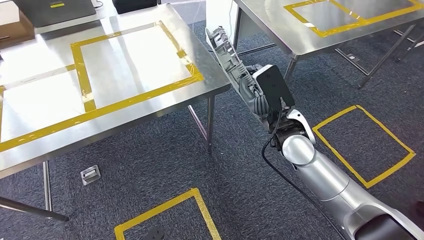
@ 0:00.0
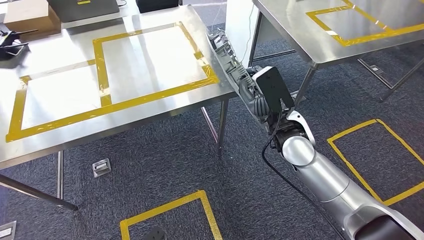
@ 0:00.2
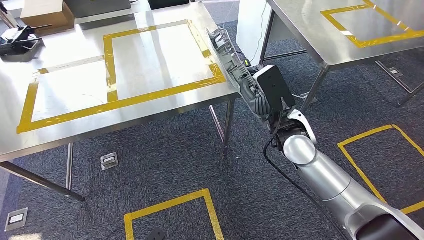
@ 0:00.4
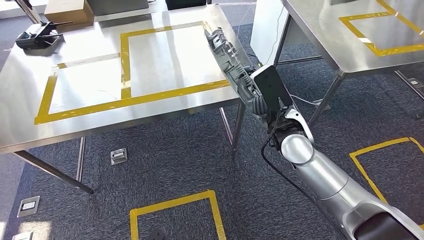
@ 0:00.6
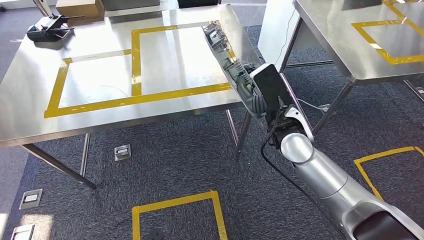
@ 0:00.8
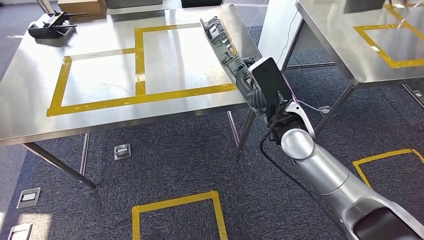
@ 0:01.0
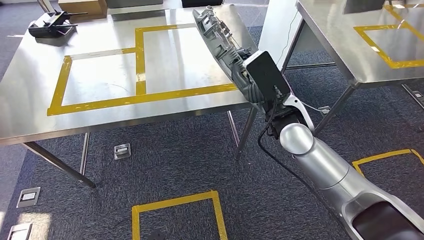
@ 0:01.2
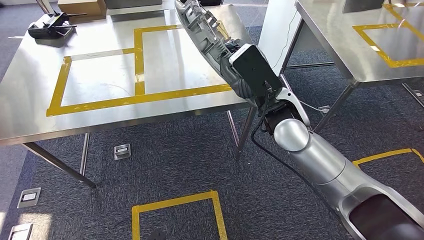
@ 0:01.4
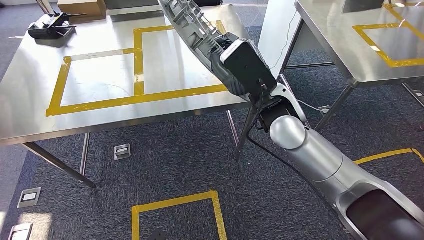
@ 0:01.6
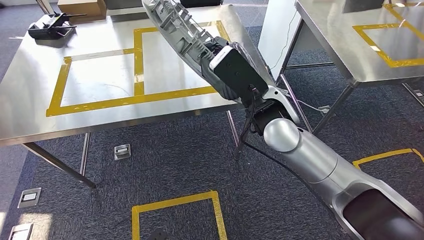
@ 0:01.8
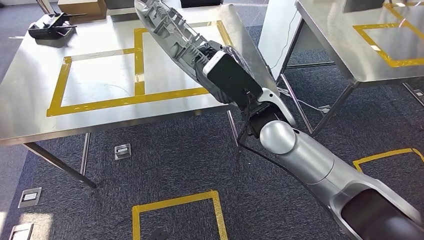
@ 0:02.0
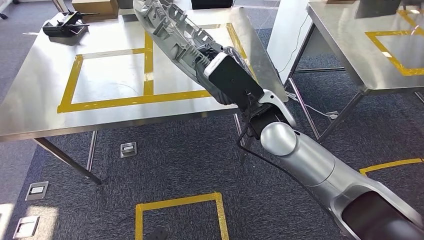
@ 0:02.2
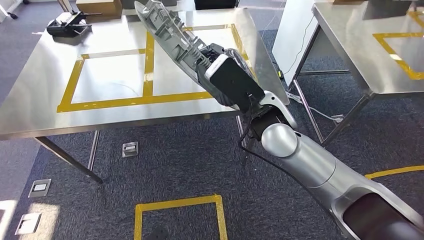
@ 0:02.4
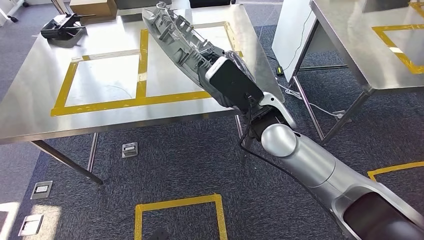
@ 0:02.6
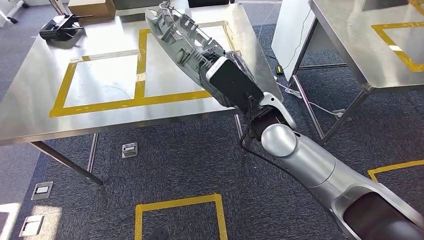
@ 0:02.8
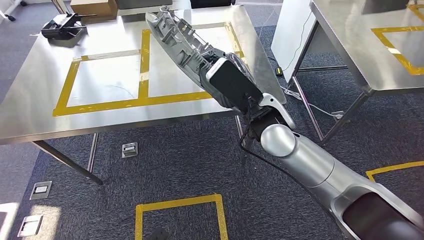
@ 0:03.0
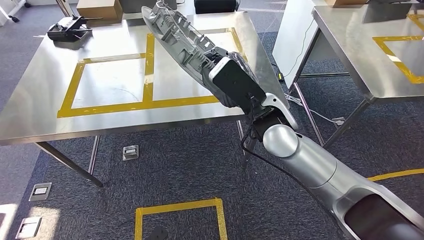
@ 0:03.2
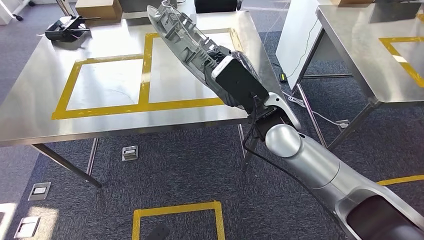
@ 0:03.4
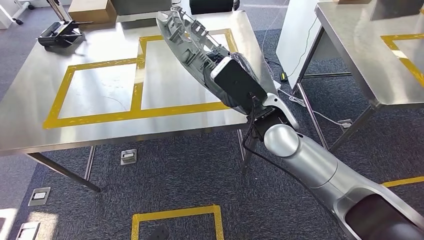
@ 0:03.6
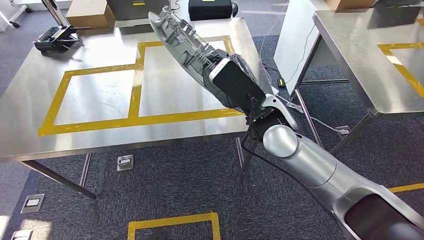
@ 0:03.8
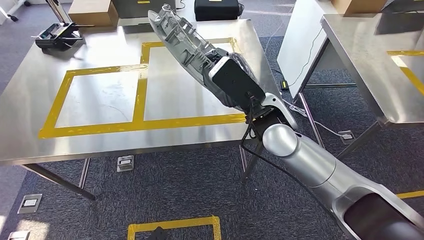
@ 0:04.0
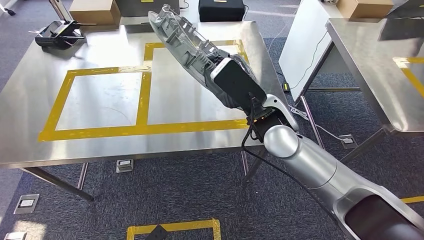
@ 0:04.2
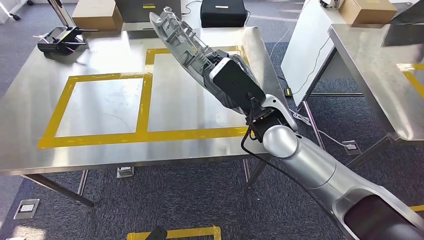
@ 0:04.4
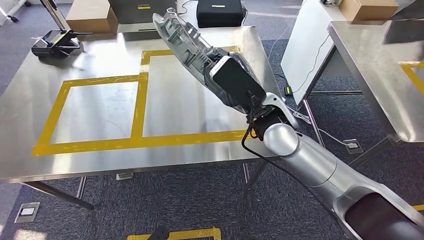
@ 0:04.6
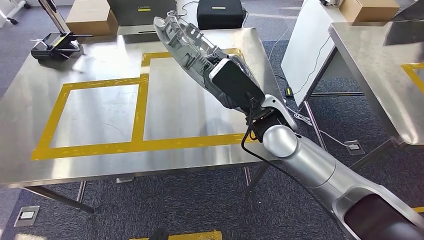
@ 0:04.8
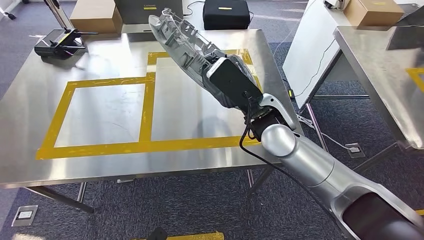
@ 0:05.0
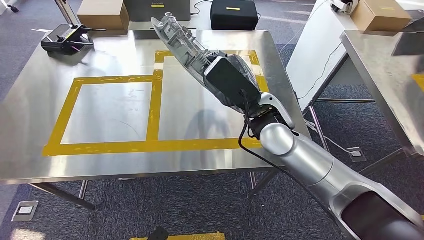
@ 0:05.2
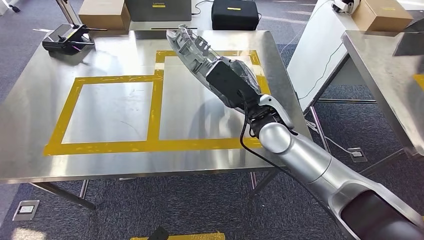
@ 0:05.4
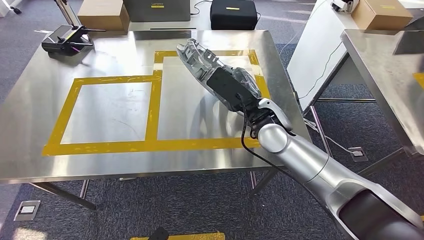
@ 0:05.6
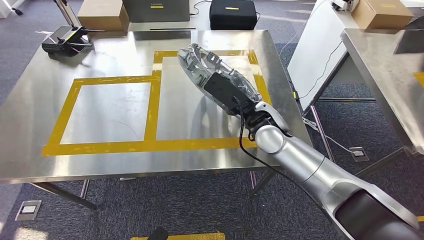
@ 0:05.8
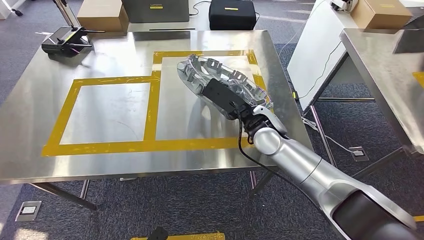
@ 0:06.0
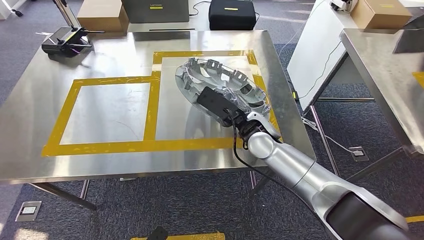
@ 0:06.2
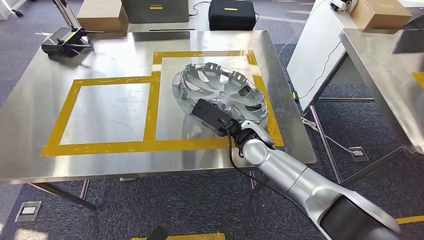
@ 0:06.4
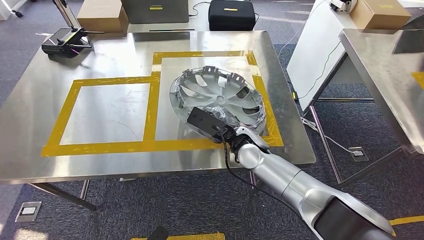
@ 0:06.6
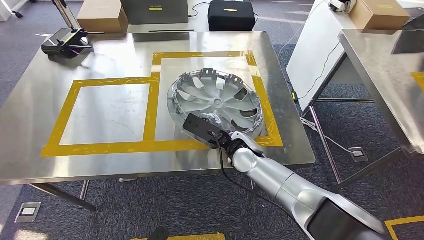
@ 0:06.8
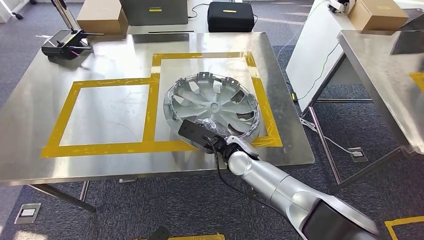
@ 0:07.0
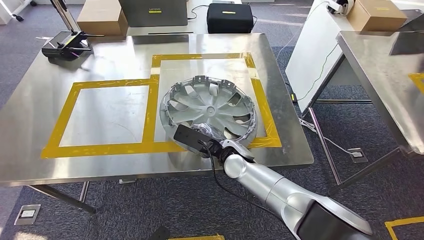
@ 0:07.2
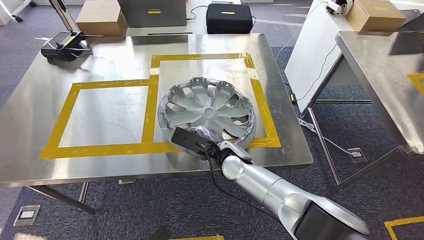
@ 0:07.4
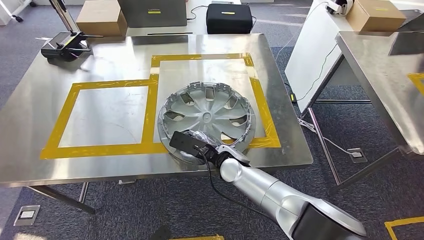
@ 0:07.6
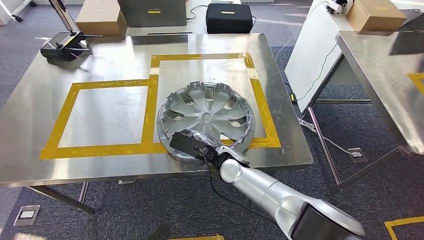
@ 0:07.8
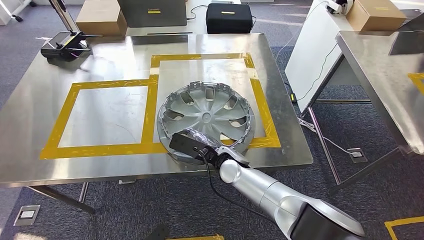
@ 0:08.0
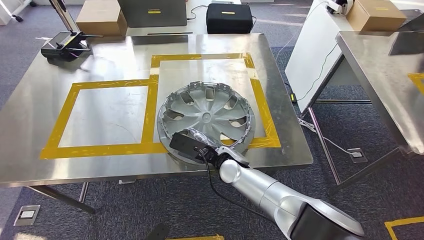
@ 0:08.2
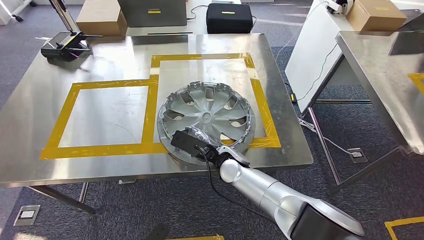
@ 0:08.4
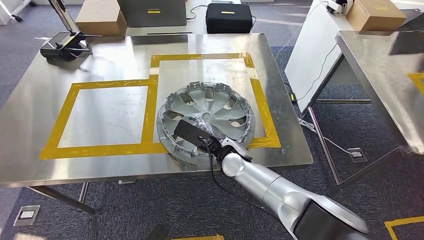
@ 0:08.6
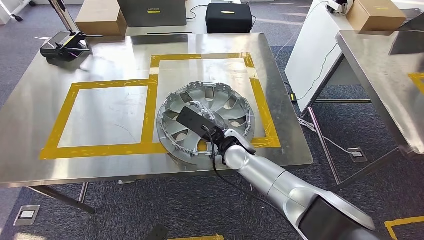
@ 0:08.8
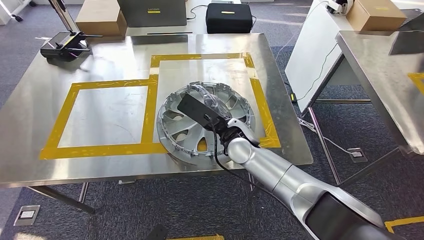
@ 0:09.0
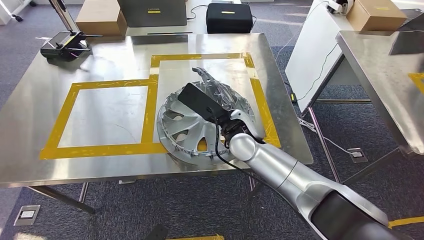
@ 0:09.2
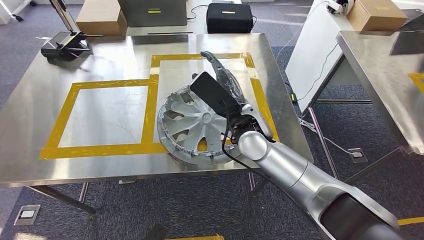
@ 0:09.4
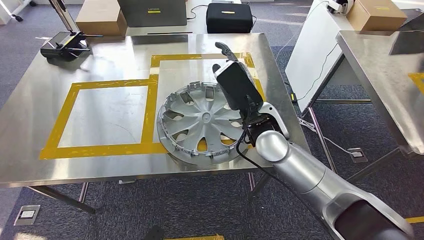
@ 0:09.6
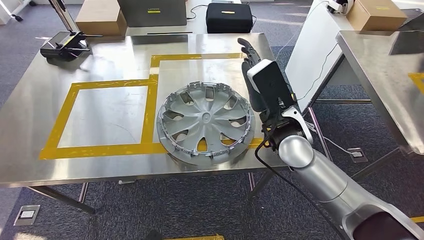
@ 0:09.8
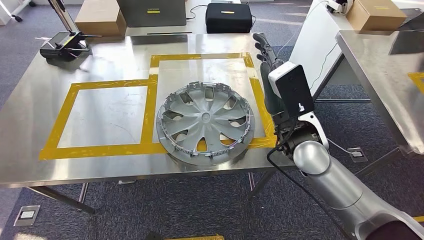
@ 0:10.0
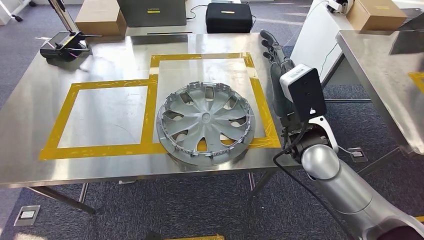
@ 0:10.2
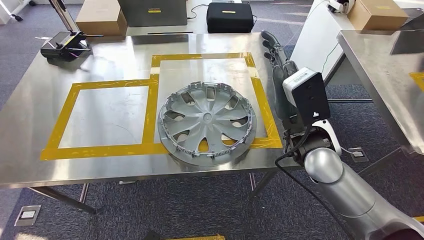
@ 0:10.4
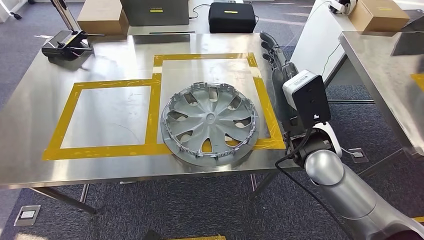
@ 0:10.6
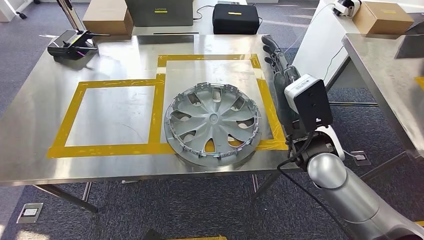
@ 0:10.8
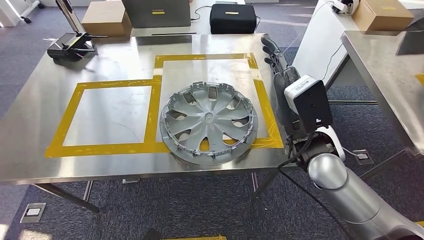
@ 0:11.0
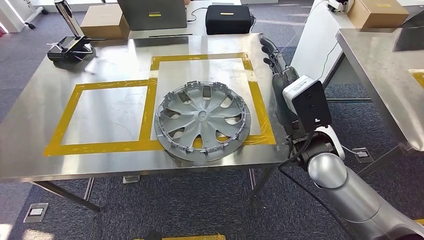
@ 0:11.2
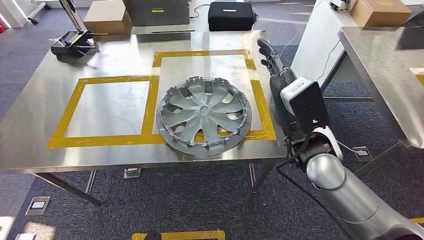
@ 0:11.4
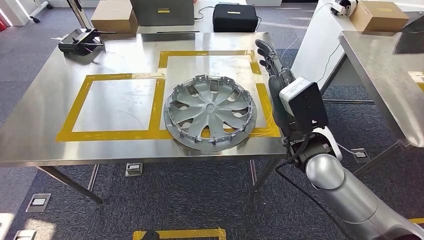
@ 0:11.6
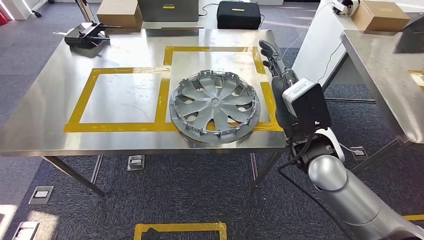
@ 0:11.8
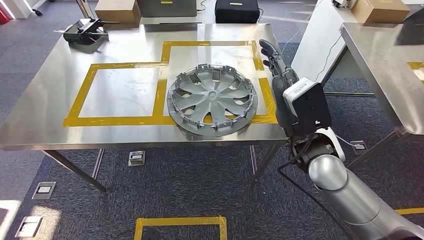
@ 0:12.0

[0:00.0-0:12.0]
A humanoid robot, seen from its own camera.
Step, 0:00.0 to 0:09.4: Insert the large material into the corresponding slot on the workbench.
0:07.6 to 0:09.0: The right hand goes some 5 cm upward.
0:09.0 to 0:10.4: The right hand shifts about 15 cm to the right, upward and backward.

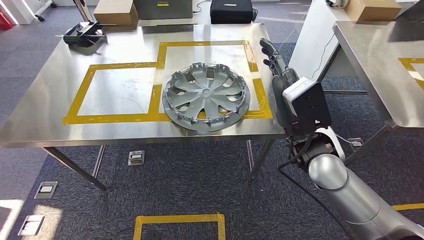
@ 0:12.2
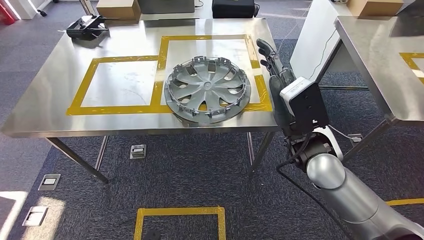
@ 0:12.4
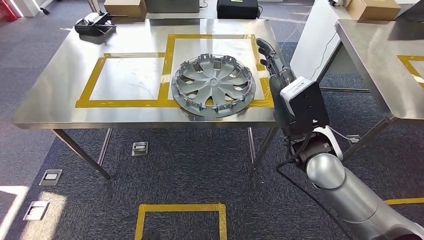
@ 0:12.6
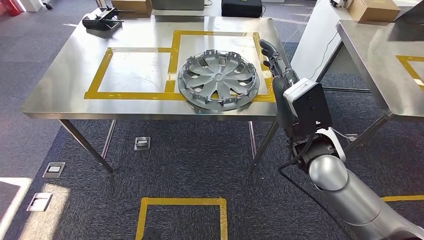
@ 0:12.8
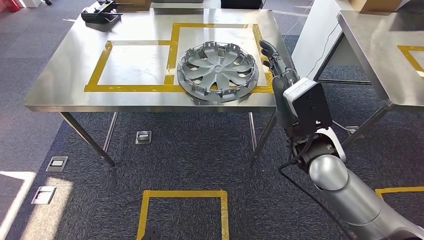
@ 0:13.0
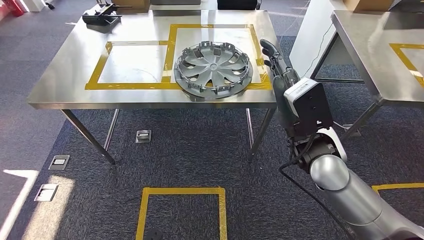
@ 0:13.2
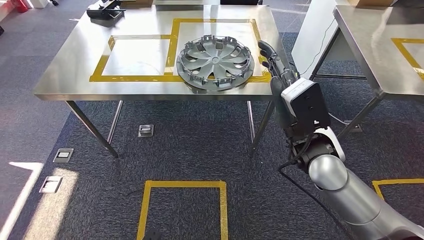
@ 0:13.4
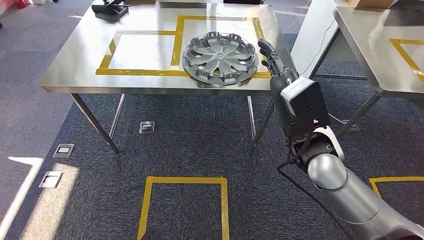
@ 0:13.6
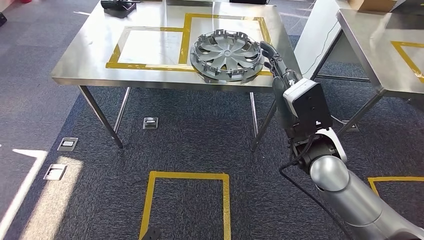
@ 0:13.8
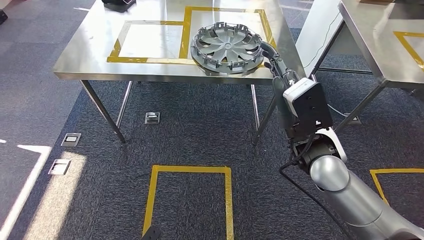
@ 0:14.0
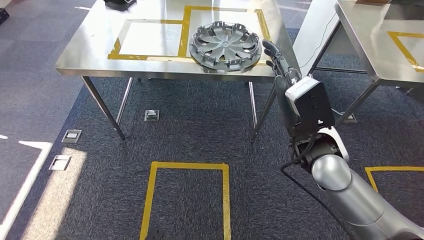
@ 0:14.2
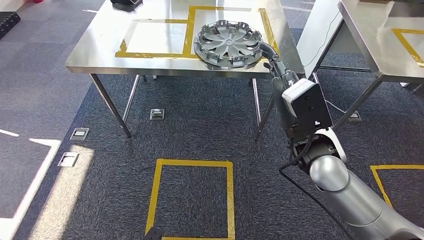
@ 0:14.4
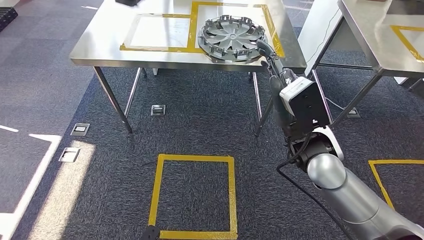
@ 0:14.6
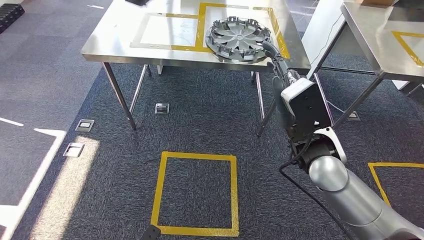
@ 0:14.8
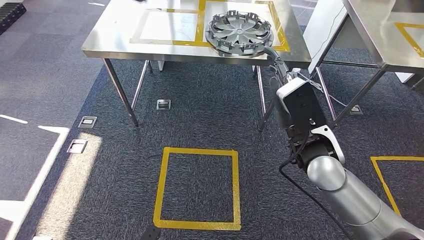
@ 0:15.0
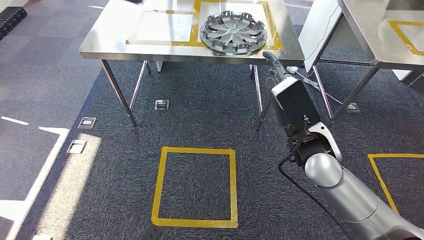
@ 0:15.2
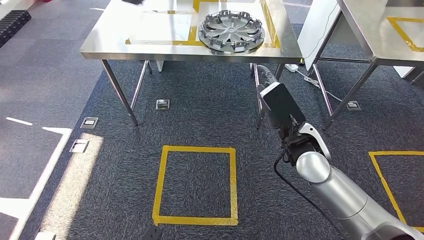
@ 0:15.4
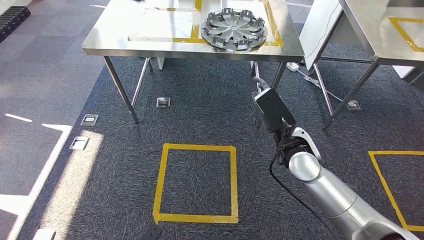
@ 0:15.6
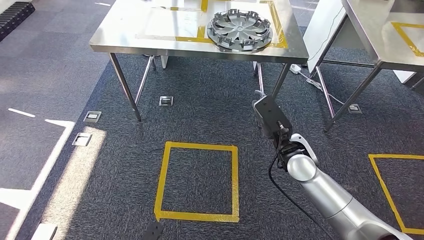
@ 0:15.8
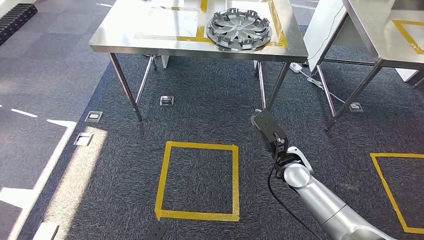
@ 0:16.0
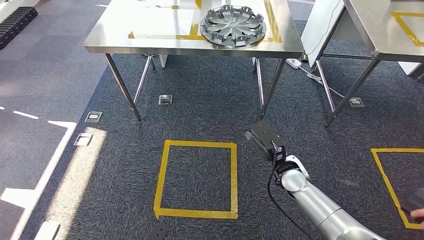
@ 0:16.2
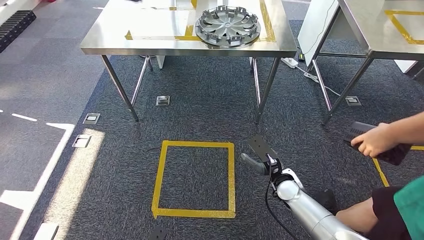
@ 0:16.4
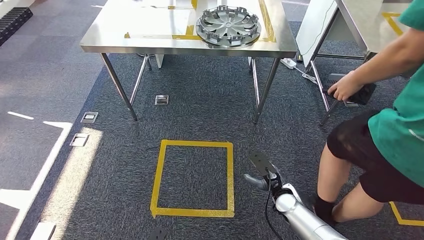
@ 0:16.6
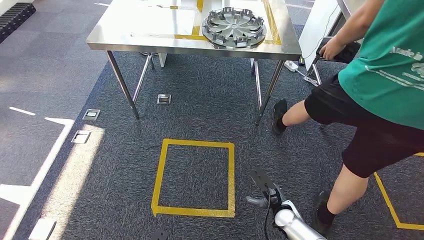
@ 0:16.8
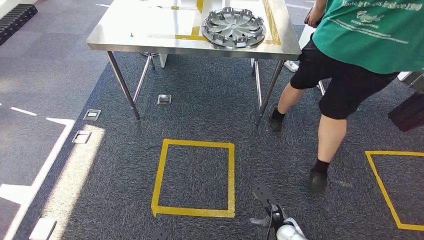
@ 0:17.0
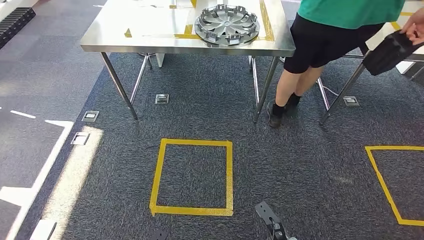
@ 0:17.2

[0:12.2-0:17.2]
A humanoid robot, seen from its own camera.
Step, 0:12.2 to 0:17.0: Return to the initial position at the shelf.
